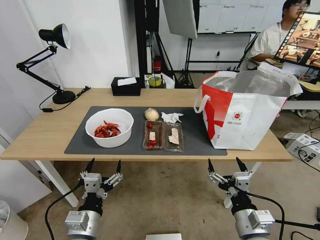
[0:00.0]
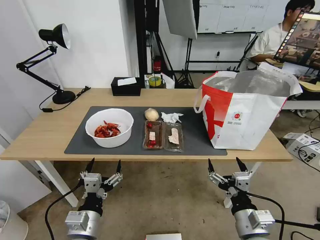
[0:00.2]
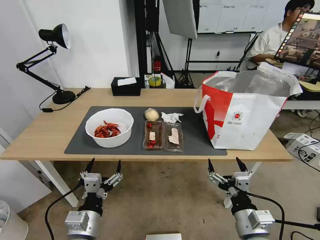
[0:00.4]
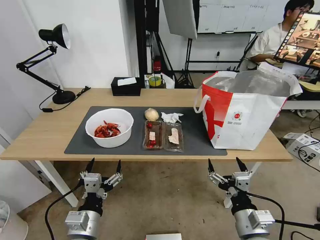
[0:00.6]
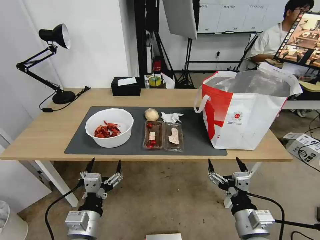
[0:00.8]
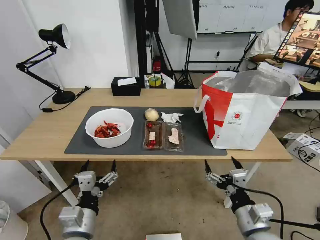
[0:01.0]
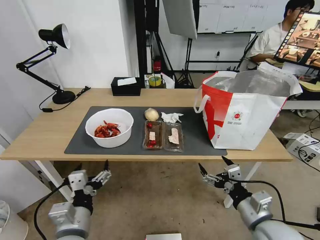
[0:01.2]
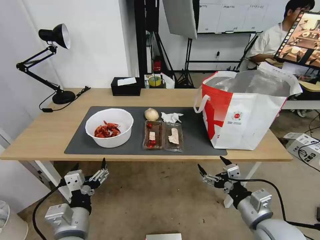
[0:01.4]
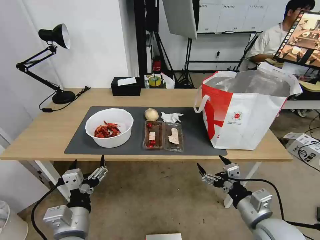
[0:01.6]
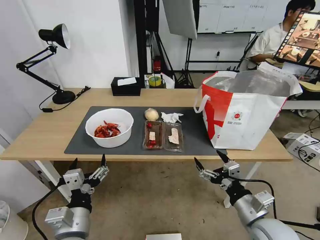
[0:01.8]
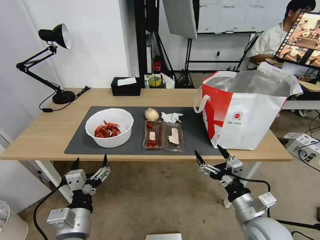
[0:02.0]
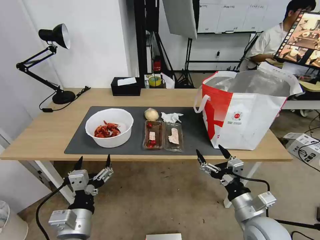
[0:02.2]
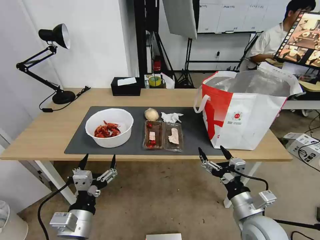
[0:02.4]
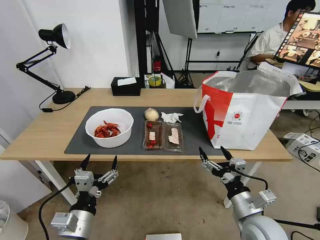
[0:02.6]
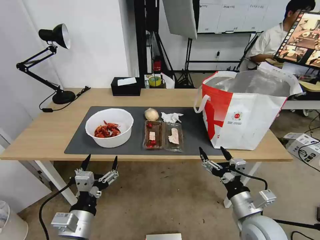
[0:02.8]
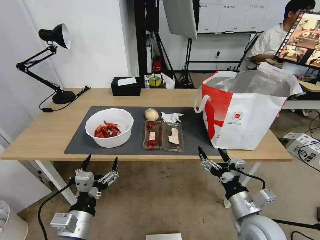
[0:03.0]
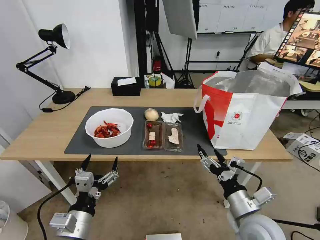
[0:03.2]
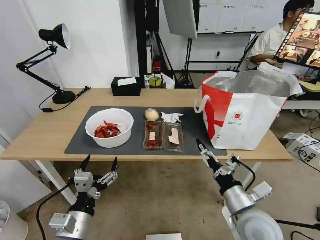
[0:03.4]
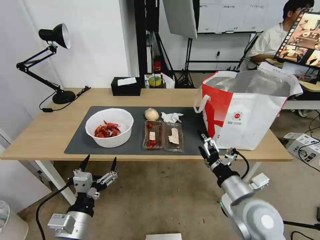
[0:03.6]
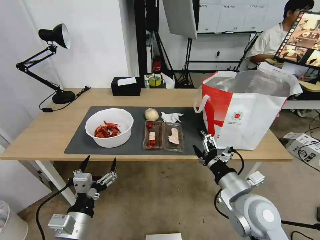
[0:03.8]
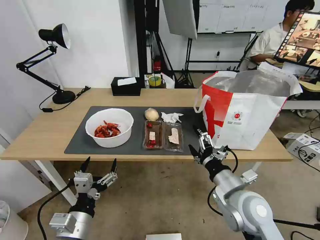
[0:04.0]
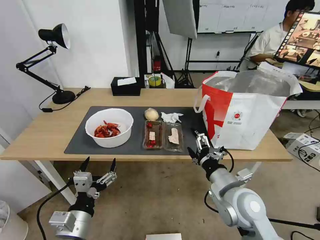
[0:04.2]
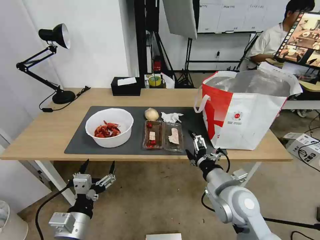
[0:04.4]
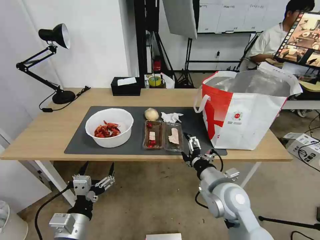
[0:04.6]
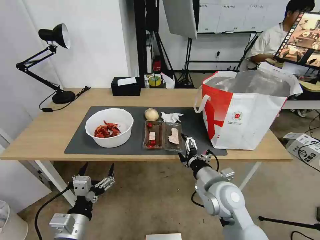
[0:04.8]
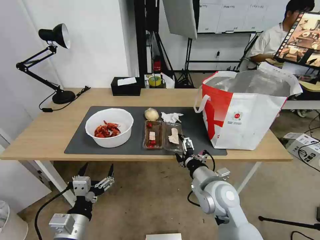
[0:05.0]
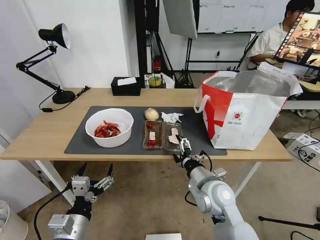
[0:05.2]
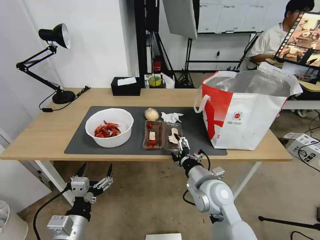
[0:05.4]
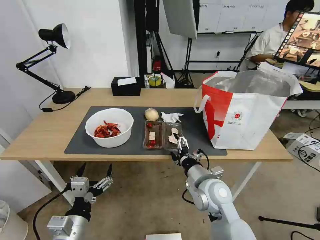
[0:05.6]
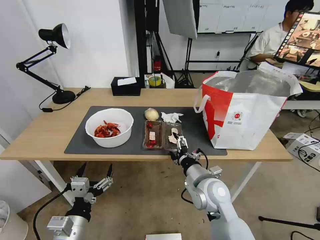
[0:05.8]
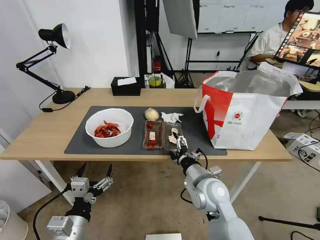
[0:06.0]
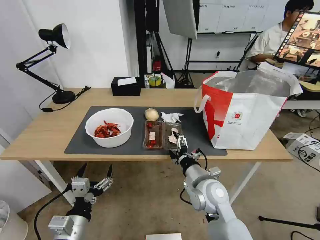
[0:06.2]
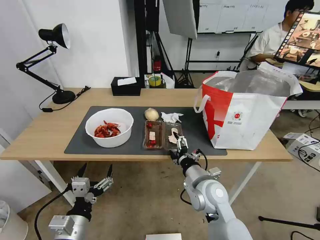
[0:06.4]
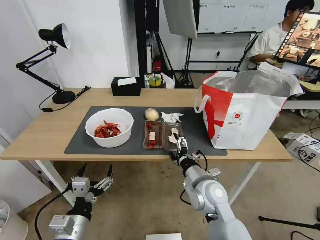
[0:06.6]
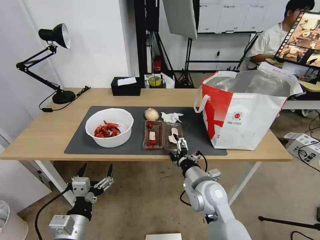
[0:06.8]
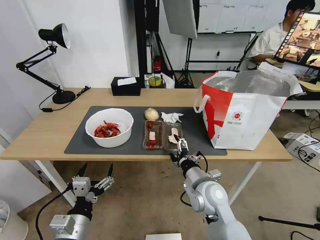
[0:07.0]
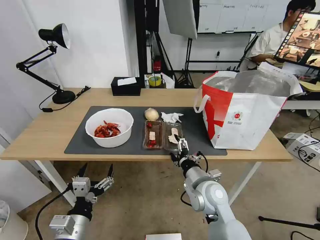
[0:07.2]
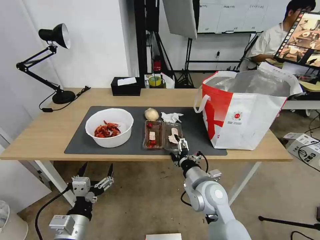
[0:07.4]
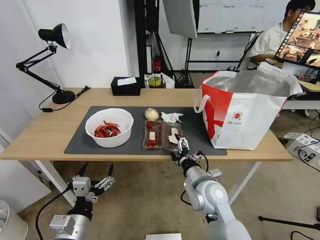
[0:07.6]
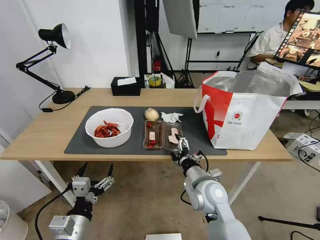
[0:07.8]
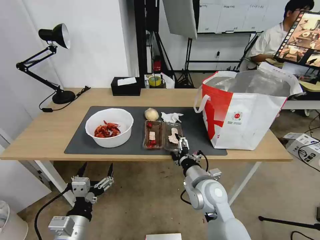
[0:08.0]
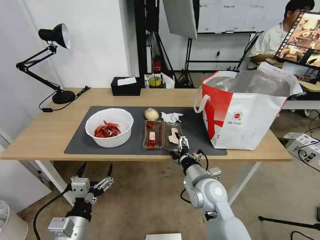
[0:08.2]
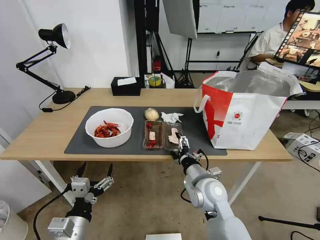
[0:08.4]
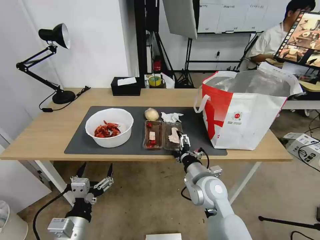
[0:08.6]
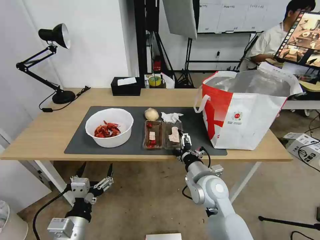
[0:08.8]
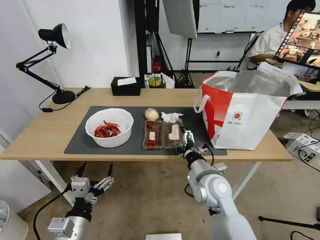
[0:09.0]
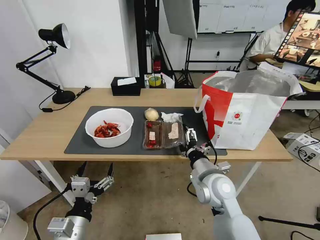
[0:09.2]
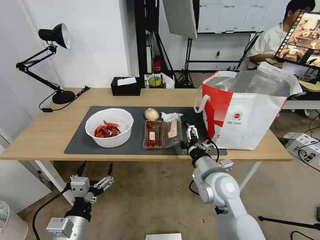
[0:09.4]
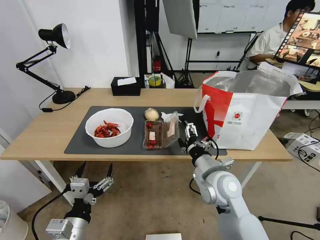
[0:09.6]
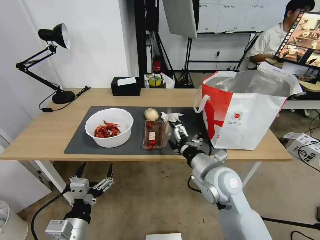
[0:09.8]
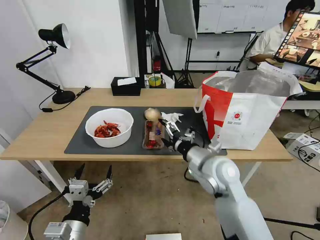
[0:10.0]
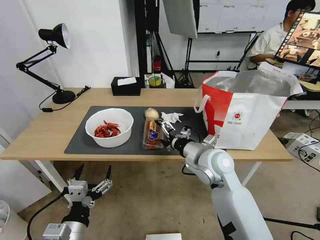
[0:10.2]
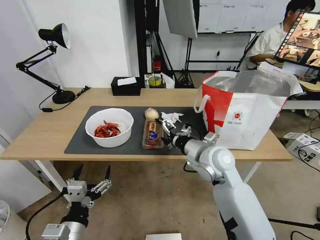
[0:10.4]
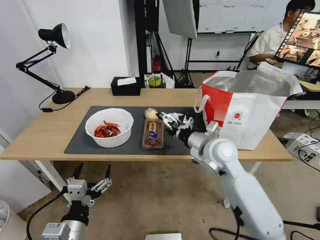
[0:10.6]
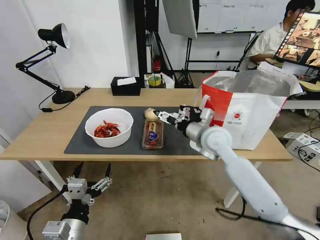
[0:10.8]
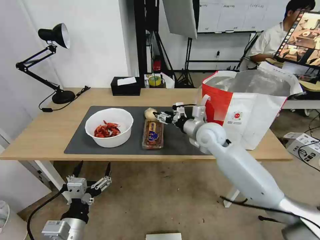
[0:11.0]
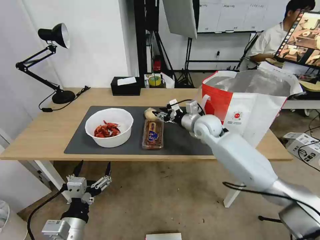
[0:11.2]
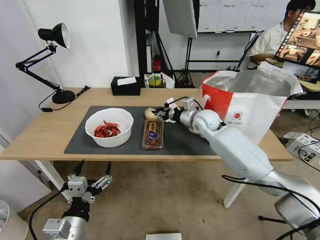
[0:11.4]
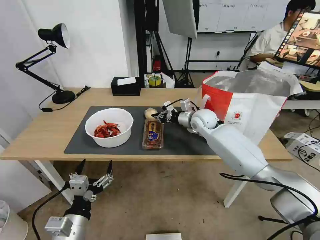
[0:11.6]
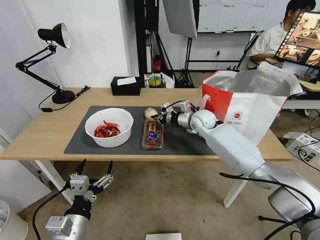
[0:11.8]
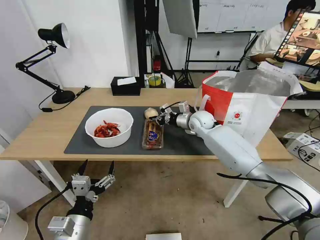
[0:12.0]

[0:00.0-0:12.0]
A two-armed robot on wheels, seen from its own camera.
Task of the whole recording: Pick up the trash from the table and place it into the takeout bag.
0:03.0 to 0:04.4: The right gripper moves forward and to the left, about 10 cm.
0:04.4 to 0:06.0: The right gripper goes roughly 5 cm to the left.
0:06.0 to 0:07.6: The two grippers keep their place.
0:07.6 to 0:09.0: The grippers move only a little.
0:09.0 to 0:10.4: The right gripper shifts approximately 10 cm upward and forward.
0:10.4 to 0:12.0: The right gripper shifts approximately 20 cm forward, and closes.

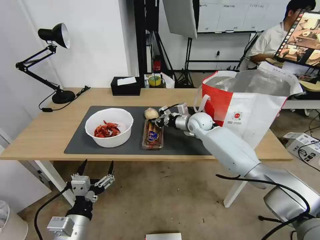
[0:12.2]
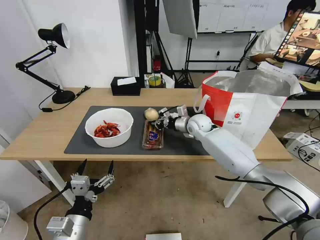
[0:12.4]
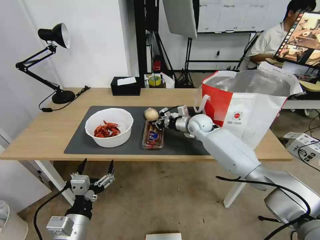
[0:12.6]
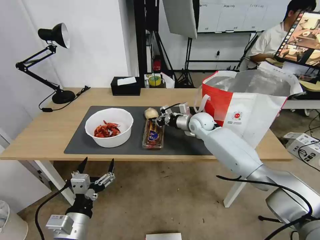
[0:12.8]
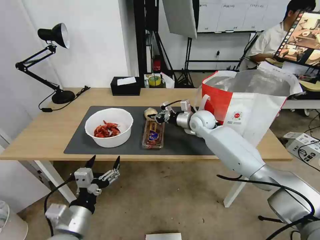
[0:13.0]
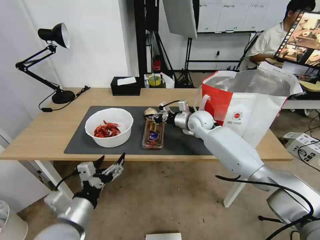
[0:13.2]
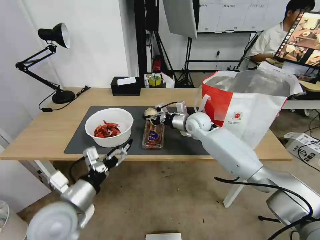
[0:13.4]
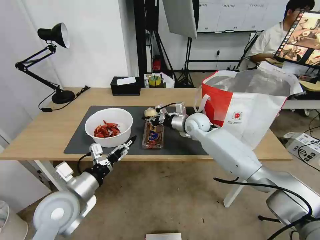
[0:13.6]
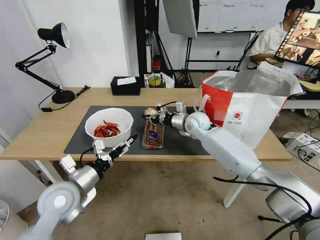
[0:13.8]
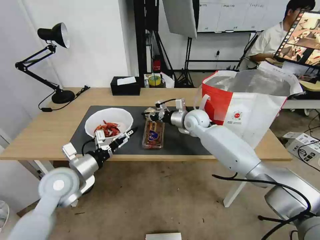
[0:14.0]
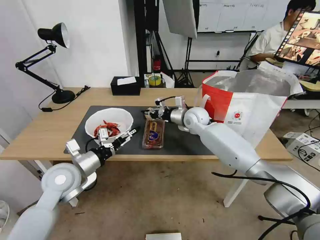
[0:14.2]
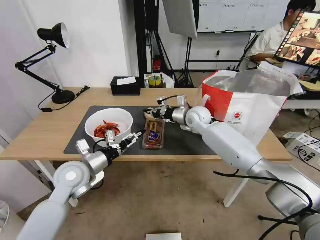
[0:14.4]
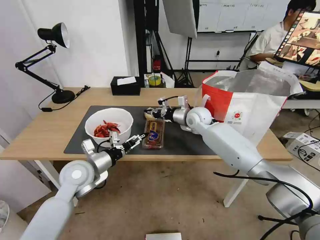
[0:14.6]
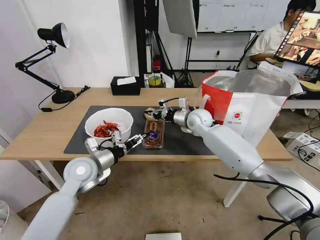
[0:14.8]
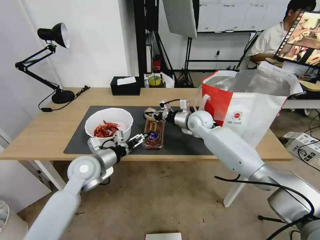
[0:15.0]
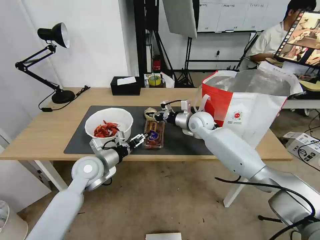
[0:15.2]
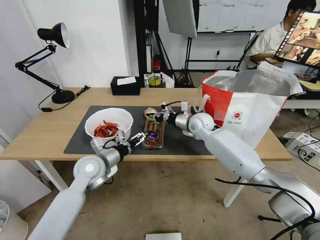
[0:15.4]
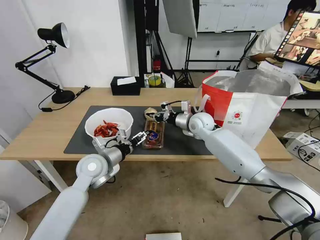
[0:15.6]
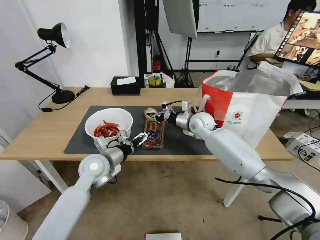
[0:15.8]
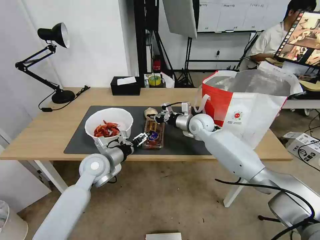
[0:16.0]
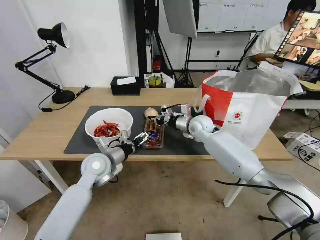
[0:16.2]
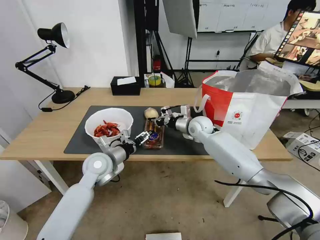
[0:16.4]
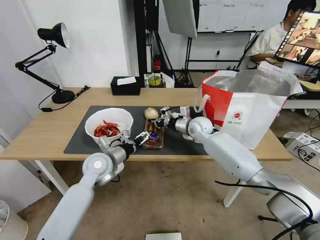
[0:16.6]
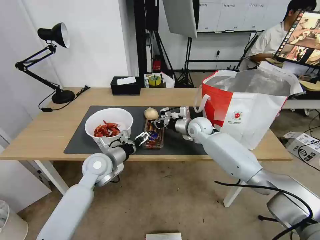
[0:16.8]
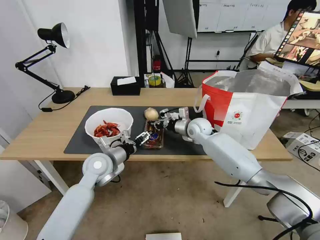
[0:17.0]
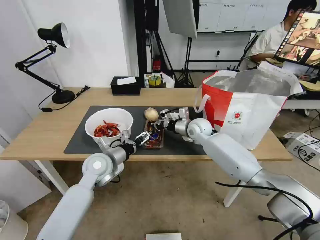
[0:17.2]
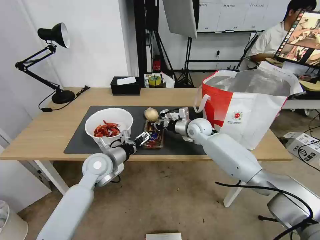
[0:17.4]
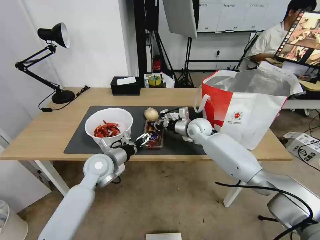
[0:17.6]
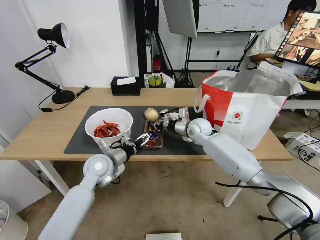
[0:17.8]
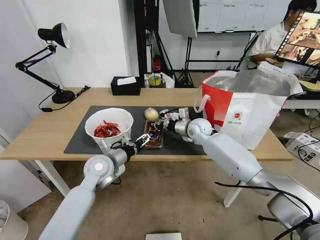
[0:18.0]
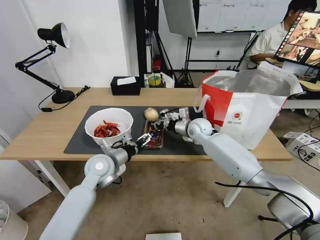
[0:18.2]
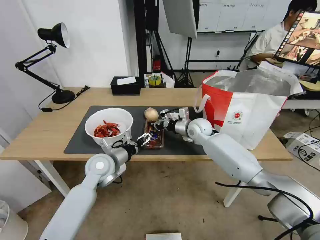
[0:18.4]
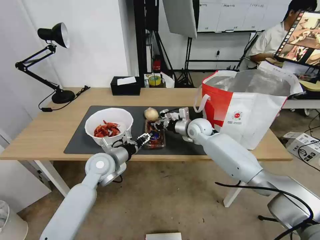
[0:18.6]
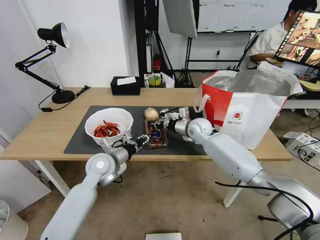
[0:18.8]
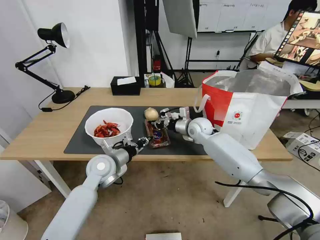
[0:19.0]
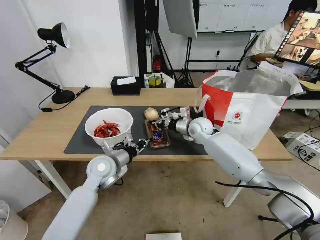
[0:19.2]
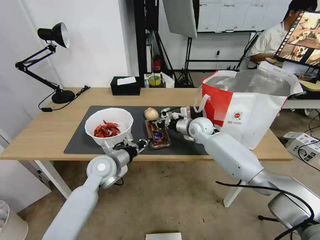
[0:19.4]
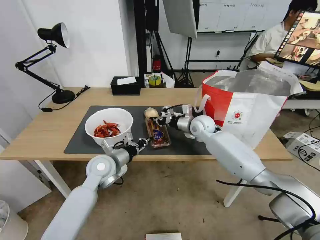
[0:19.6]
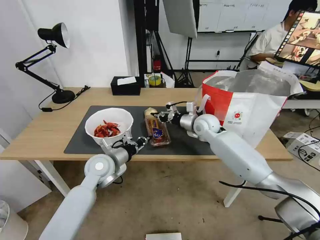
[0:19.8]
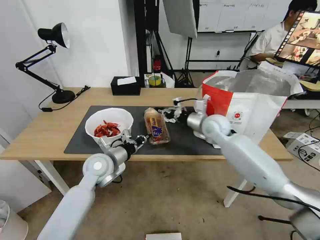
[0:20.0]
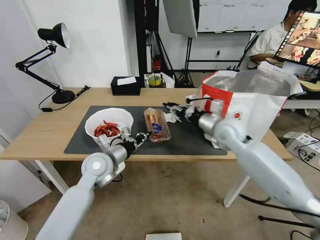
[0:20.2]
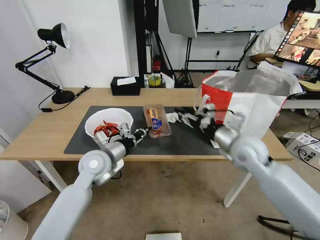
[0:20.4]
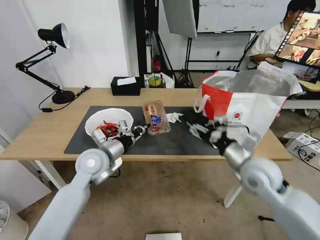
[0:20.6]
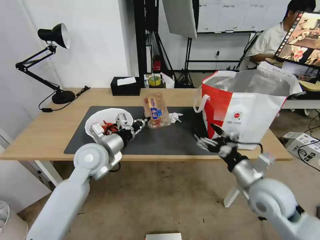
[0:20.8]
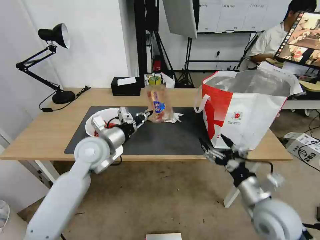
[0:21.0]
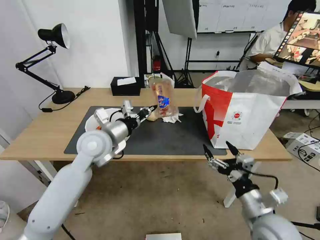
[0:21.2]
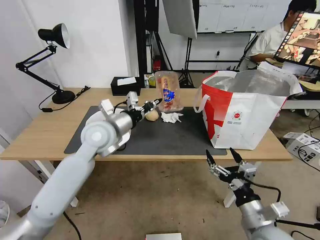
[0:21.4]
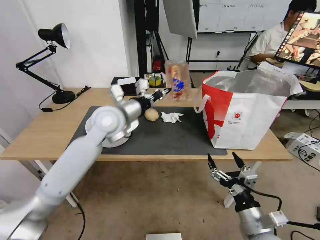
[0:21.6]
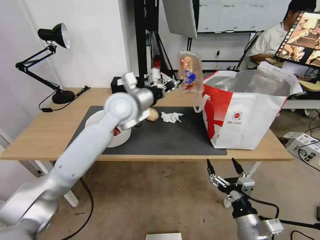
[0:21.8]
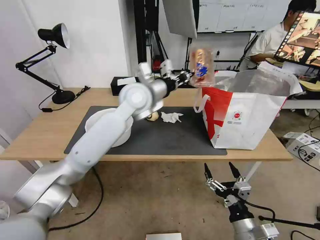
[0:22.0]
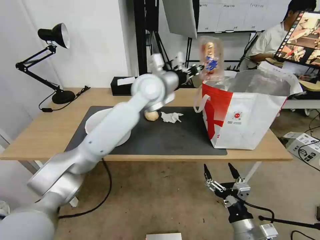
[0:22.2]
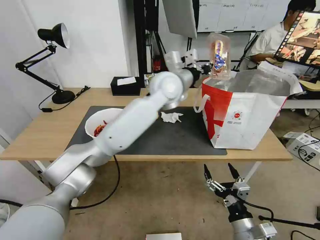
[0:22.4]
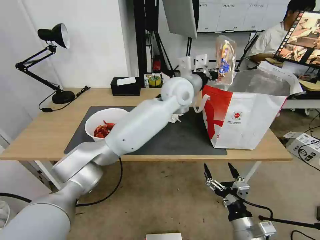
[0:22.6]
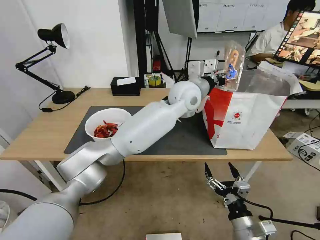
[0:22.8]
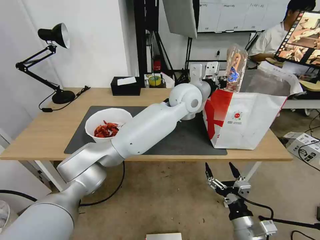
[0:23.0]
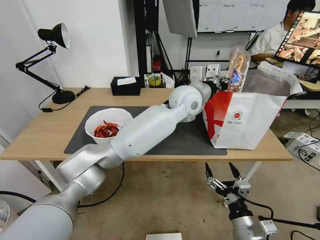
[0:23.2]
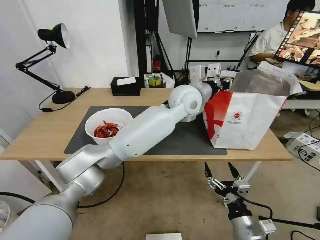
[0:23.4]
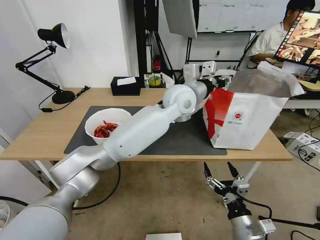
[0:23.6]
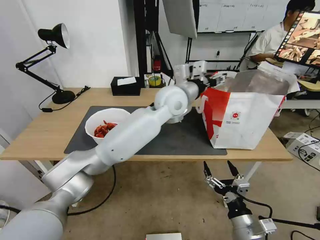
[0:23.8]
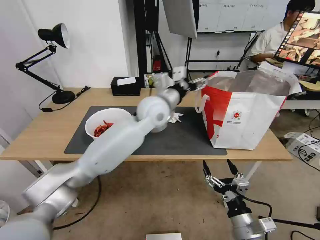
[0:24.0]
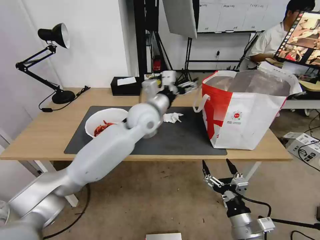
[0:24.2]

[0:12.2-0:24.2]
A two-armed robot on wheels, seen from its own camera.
Task of the whole recording: Pick up the trash from the table and place it into the takeout bag.
0:12.2 to 0:13.8: The left gripper heads forward and upward, covering roughly 15 cm.
0:13.8 to 0:15.2: The left gripper goes approximately 10 cm forward.
0:15.2 to 0:16.6: The grippers make only small movements.
0:16.6 to 0:18.2: Neither gripper changes place.
0:18.2 to 0:19.8: The left gripper closes its fingers.
0:19.8 to 0:21.2: The left gripper shifts roughly 10 cm upward. Meanwhile the right gripper travels backward by approximately 35 cm, and opens.
0:21.2 to 0:22.6: The right gripper is displaced downward and backward by approximately 10 cm; the left gripper shifts about 25 cm to the right and forward.
0:22.6 to 0:24.2: The left gripper heads to the left and downward, covering some 15 cm, and opens.
